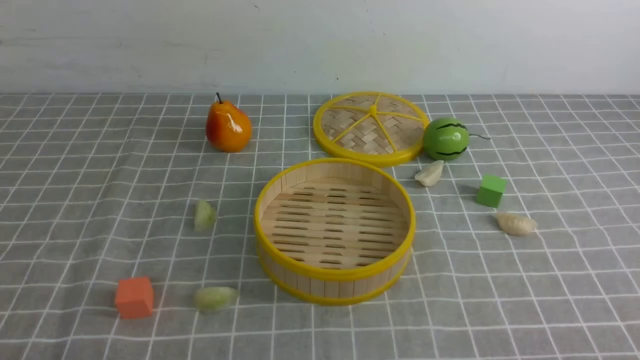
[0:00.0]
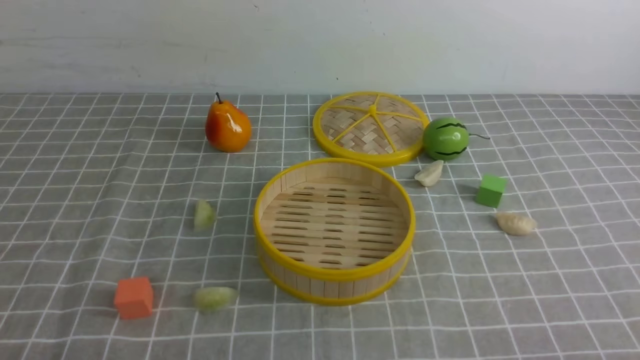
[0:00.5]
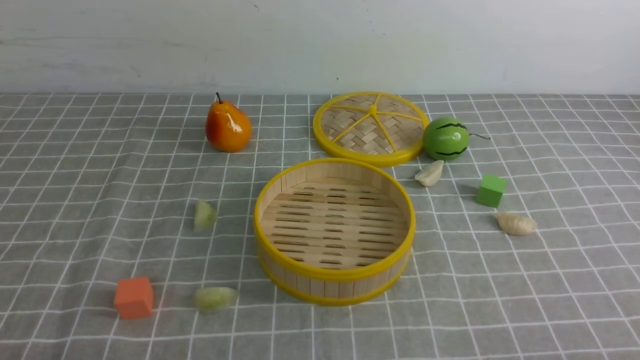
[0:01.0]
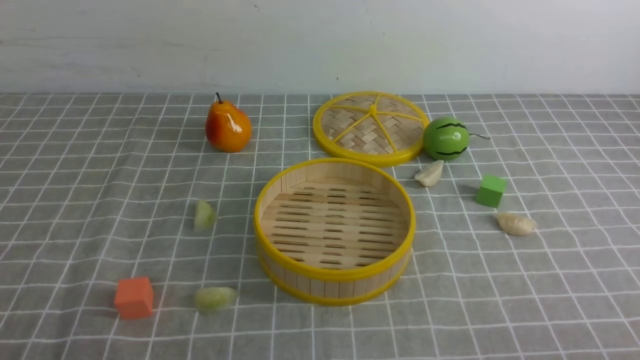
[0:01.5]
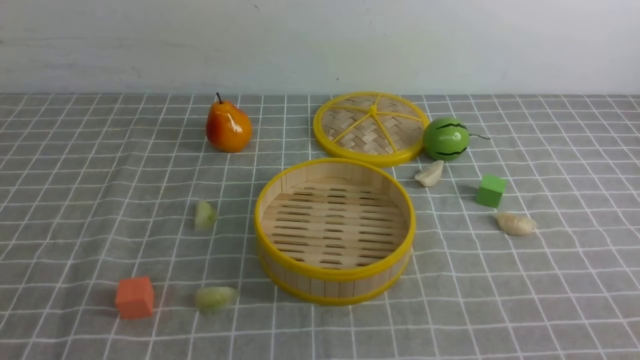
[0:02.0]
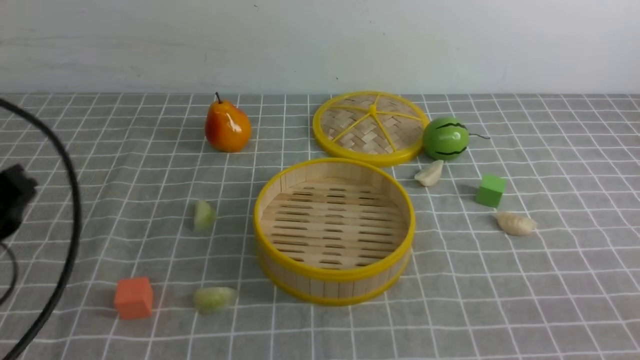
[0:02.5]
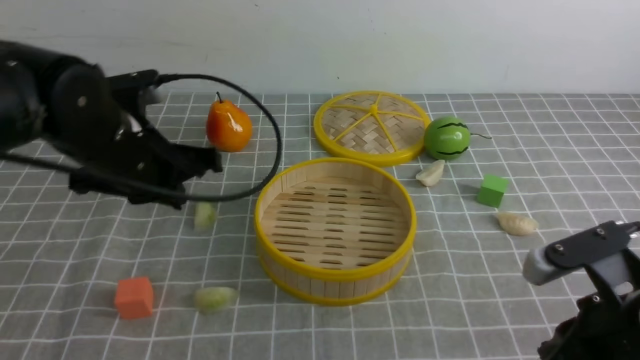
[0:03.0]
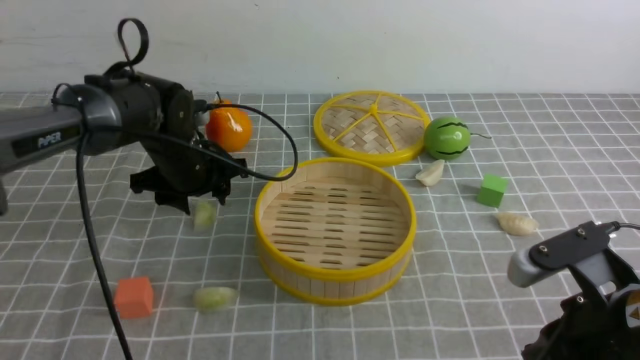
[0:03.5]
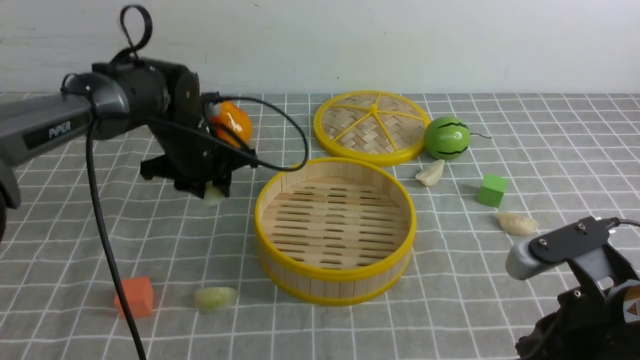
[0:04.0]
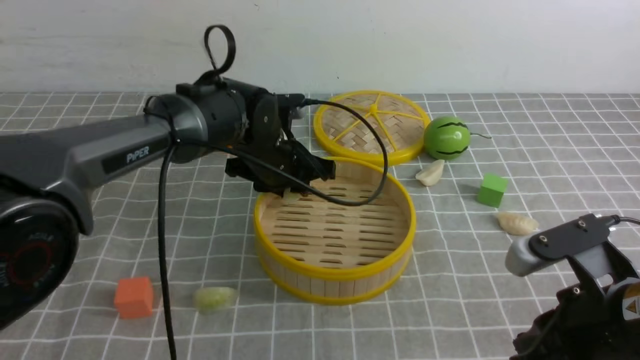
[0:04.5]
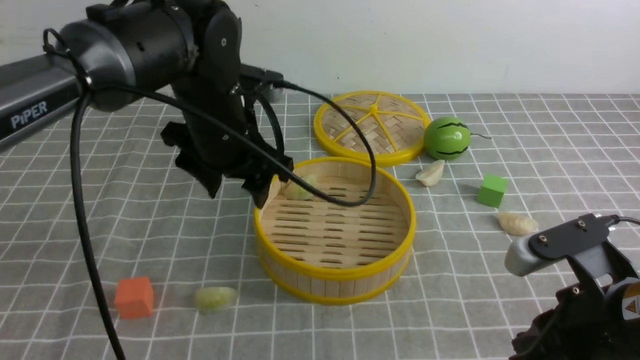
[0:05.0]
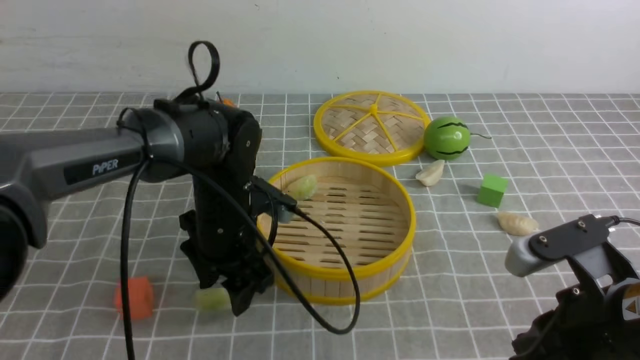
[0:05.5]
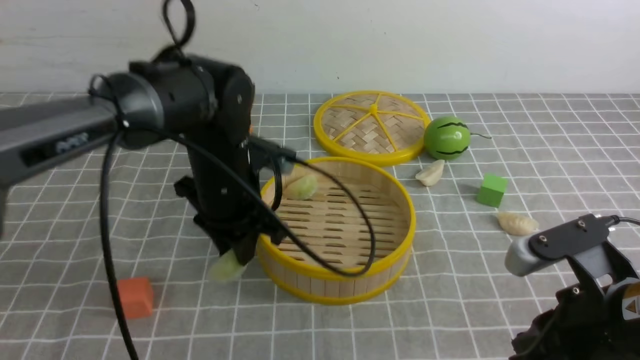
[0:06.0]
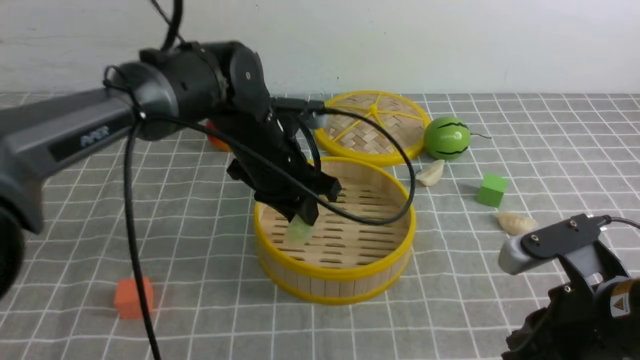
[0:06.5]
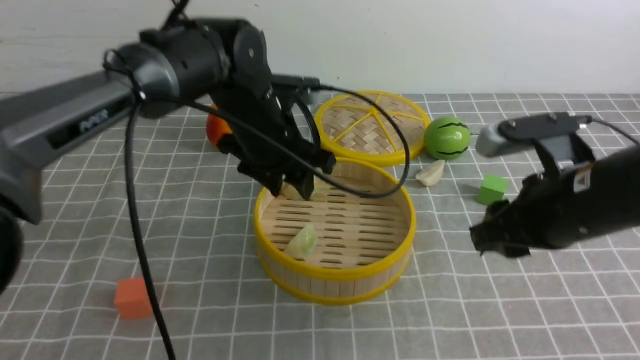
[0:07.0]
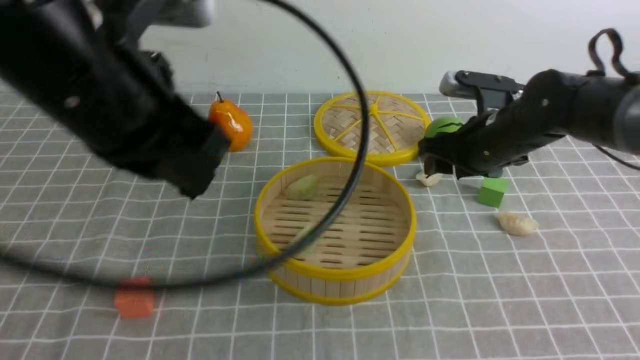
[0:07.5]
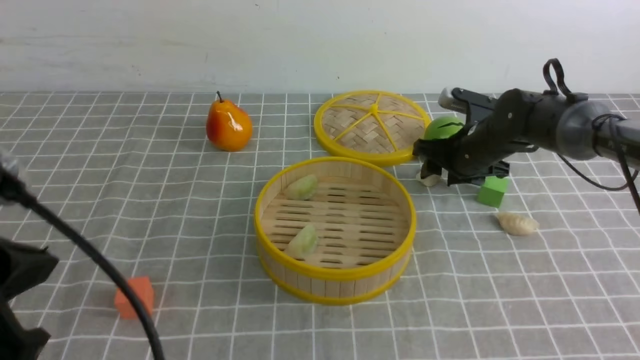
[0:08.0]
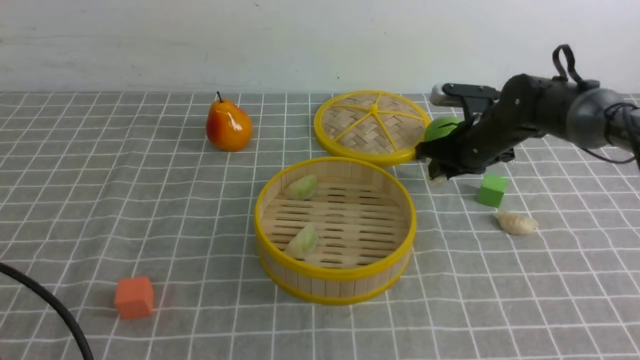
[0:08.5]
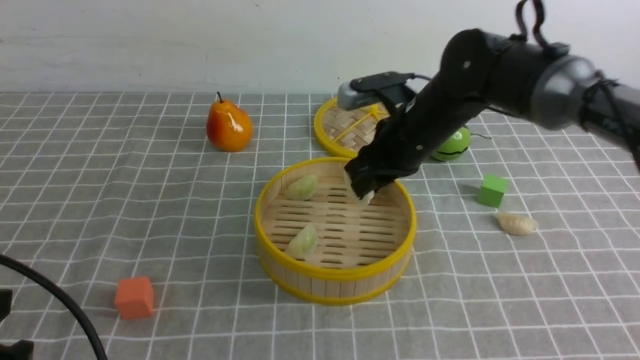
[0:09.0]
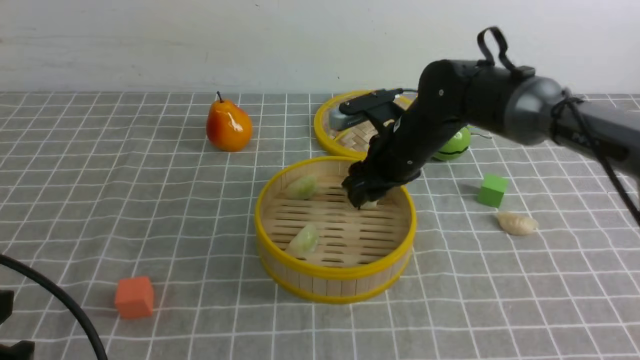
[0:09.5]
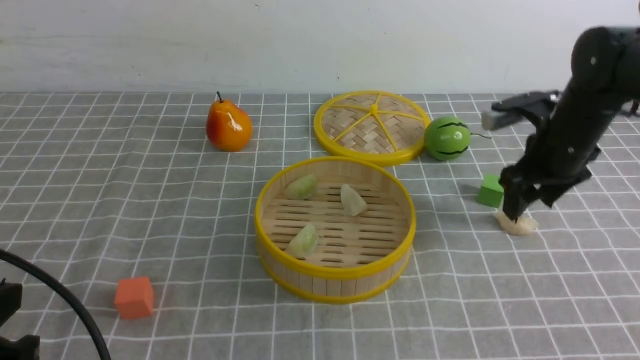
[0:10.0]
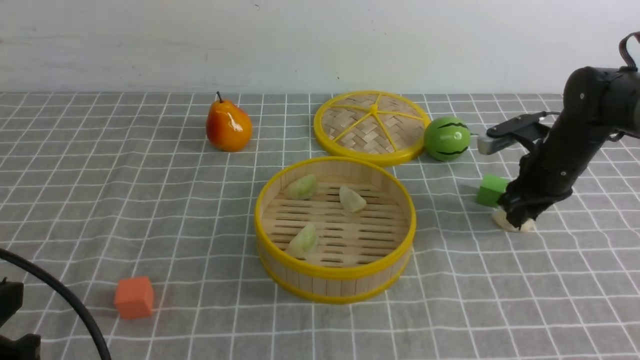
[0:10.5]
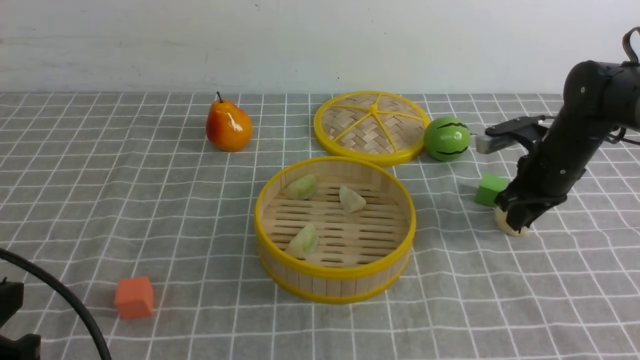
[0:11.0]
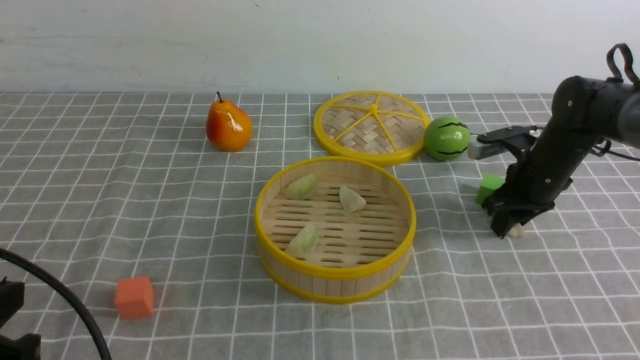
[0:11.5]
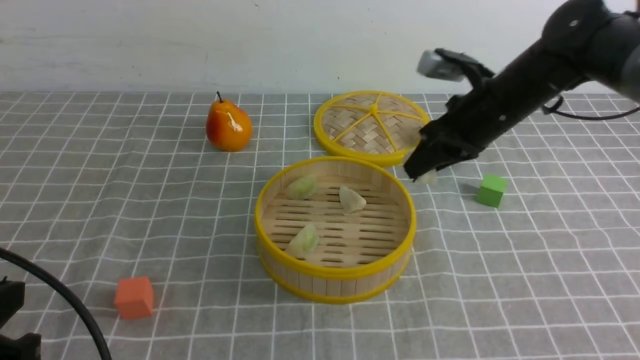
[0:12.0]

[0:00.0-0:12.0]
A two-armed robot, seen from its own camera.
Task of the whole recording: put the dumplings into the steamer on the table with the grey tablecloth.
Step, 0:00.0 to 0:04.0: use the left arm to grab a dumpling.
Step, 0:05.0 to 0:05.5: use the left arm to grab a dumpling.
Step, 0:06.0 to 0:06.5: use the left arm to put the dumpling into the steamer.
Step, 0:07.5 to 0:08.5: use the right arm to grab a dumpling.
Step, 0:09.0 to 0:09.5: use the right arm to put the dumpling into the steamer.
Step, 0:10.0 to 0:11.5: use the right arm to grab a dumpling.
0:02.0 to 0:04.0: The right gripper travels forward and to the left by roughly 15 cm; the left gripper heads forward, covering some 40 cm.
0:04.0 to 0:06.0: The left gripper shifts some 10 cm backward and to the right, and opens, then closes again.
0:06.0 to 0:08.0: The right gripper is displaced forward by approximately 30 cm, and opens; the left gripper is displaced backward, upward and to the left by about 30 cm, and closes.
0:08.0 to 0:10.0: The right gripper heads upward and backward, covering some 10 cm, and reaches some 10 cm to the left, then returns; the left gripper is displaced downward by some 5 cm.
0:10.0 to 0:12.0: The right gripper closes its fingers.

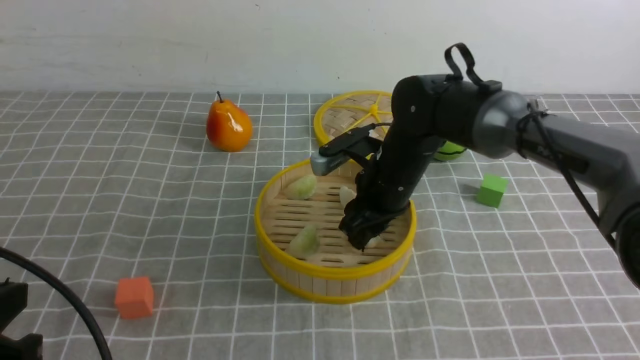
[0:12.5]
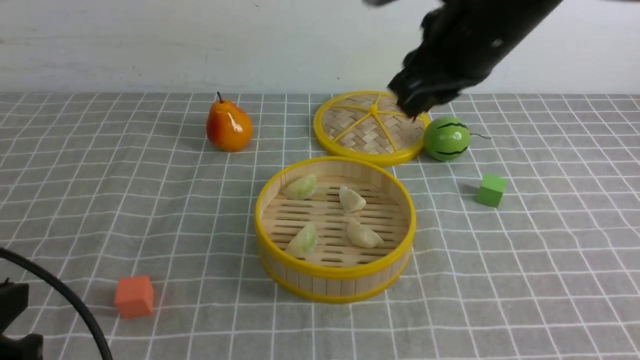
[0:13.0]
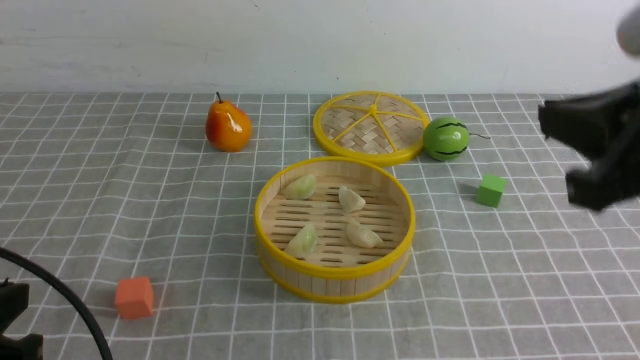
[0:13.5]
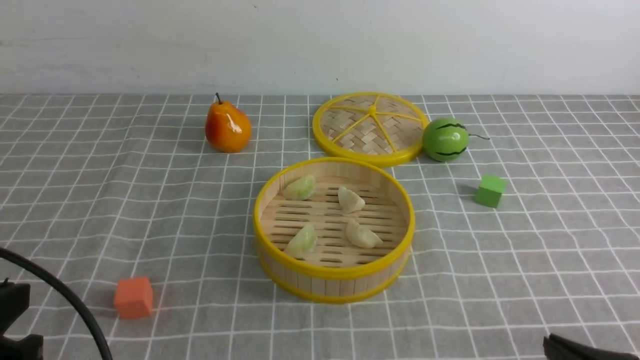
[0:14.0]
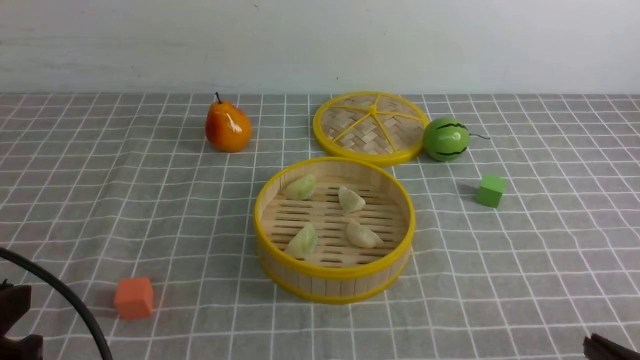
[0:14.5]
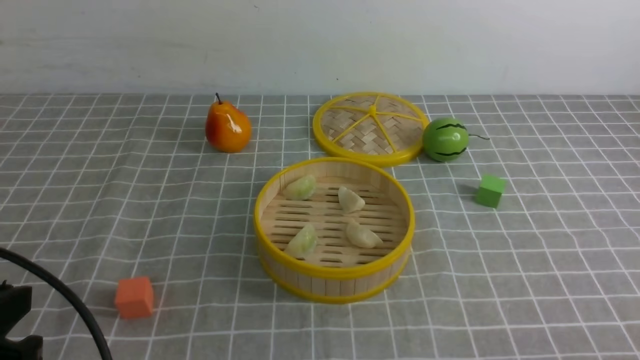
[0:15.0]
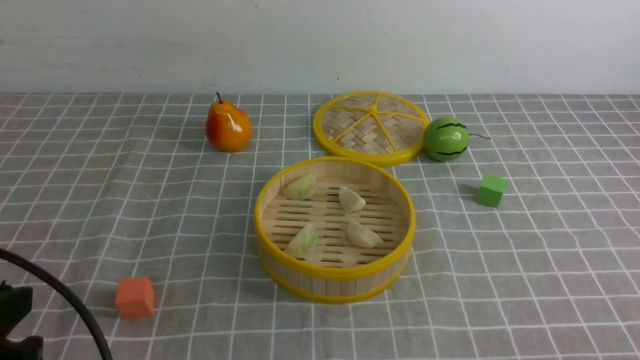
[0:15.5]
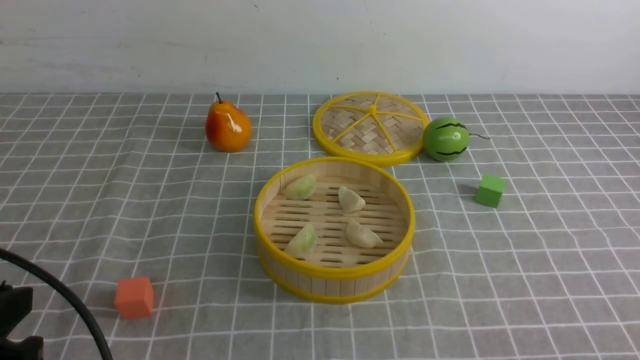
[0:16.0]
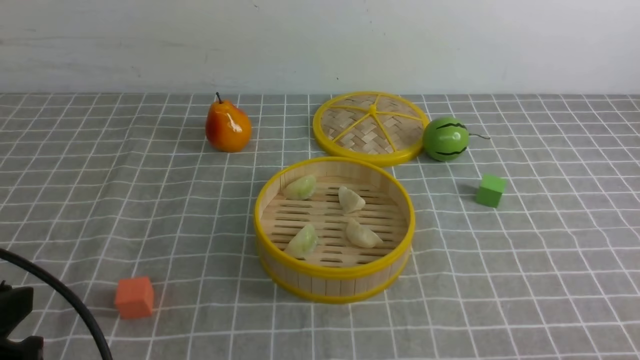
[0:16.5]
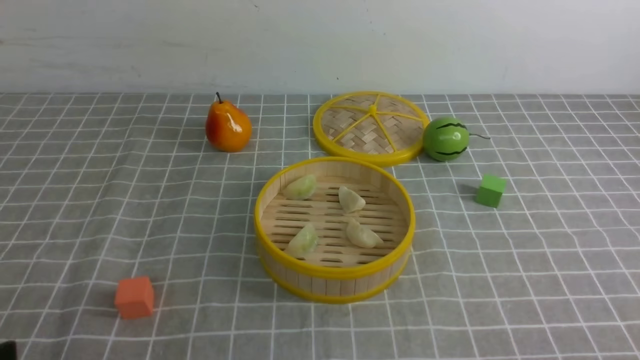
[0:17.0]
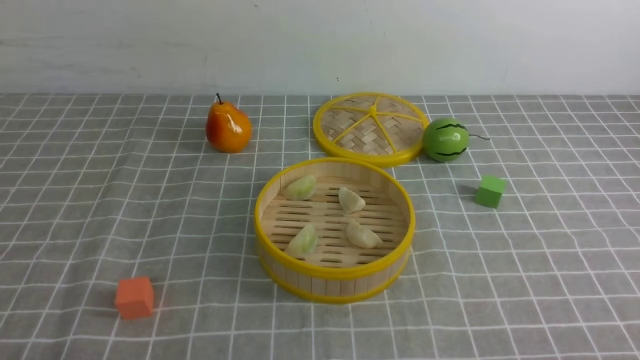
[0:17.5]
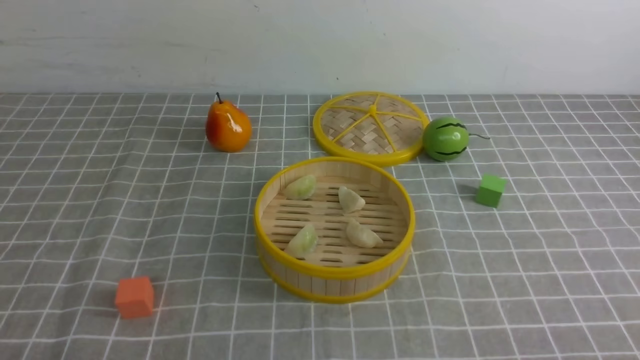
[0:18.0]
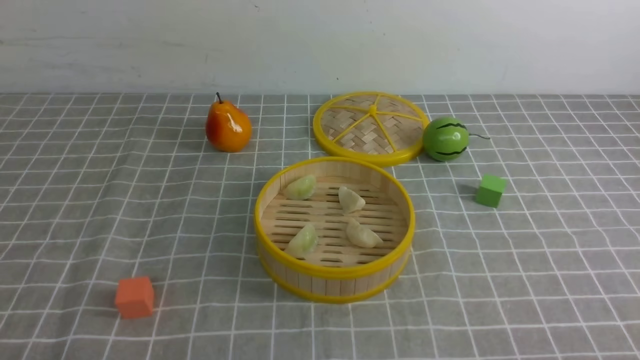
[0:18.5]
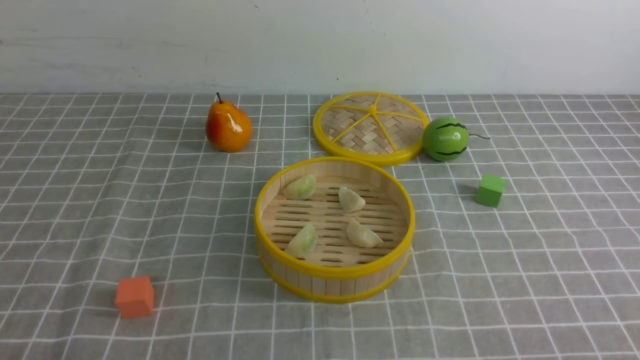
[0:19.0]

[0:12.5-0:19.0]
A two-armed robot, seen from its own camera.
Task of the whole recording: put the dumplings into the steamer on the table with the grey tablecloth.
0:12.5 to 0:14.5: The right gripper is displaced backward and to the right by some 40 cm, and closes its fingers.
